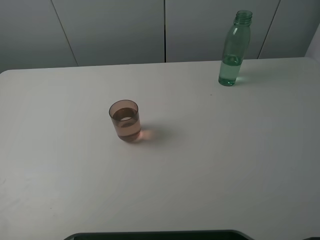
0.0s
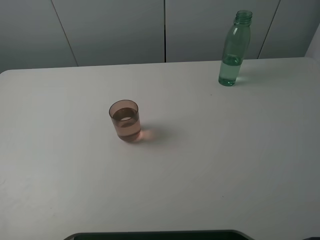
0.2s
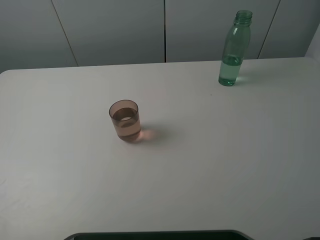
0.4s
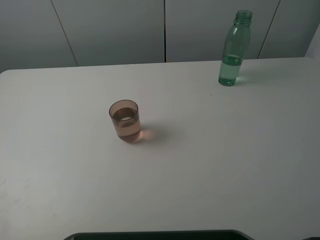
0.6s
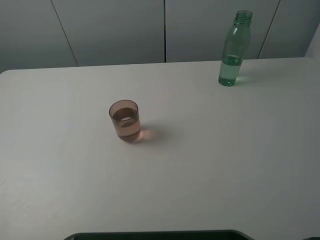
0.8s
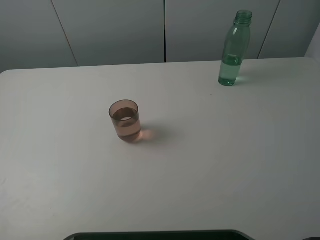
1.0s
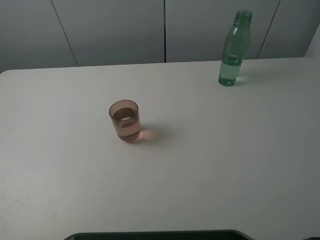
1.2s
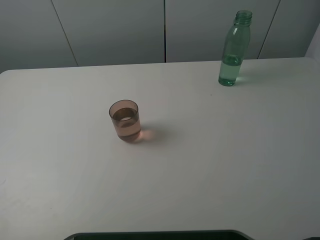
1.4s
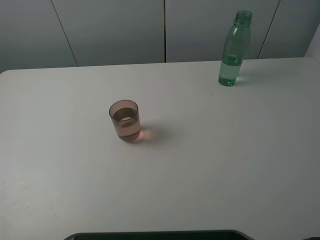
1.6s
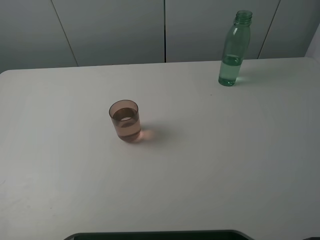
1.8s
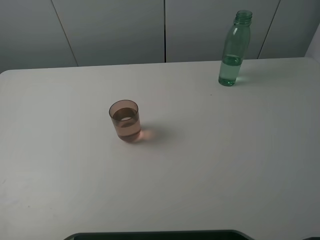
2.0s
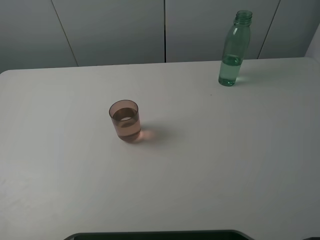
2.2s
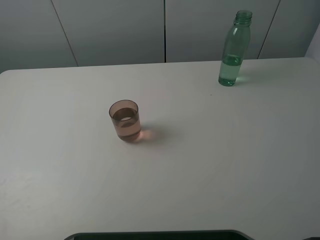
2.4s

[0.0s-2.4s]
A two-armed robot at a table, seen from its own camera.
Task of the whole recording: pick up the bottle filled with water and pour it into the pink cup.
1.2s to 2.4s: Neither gripper changes place.
